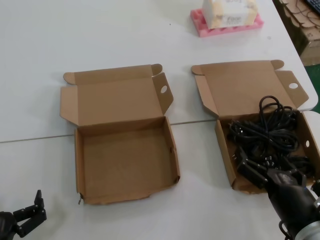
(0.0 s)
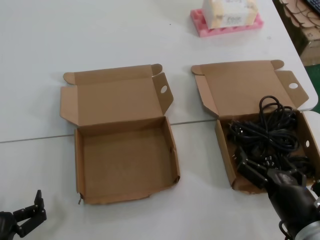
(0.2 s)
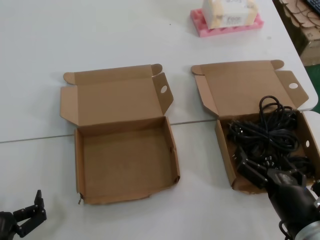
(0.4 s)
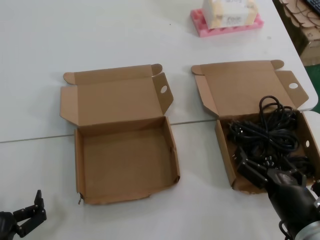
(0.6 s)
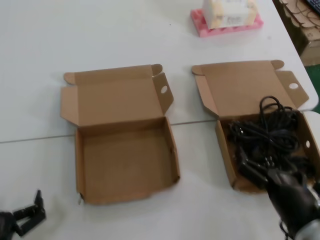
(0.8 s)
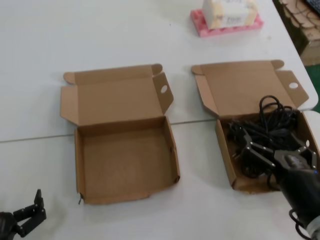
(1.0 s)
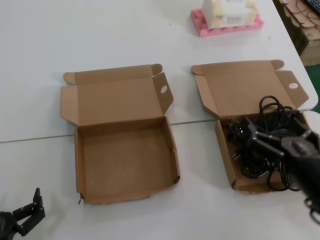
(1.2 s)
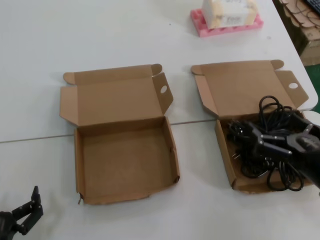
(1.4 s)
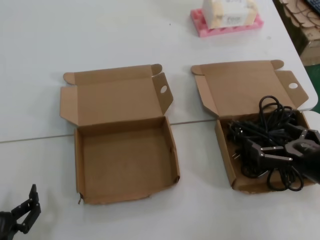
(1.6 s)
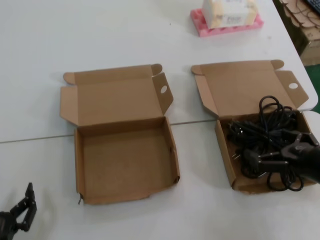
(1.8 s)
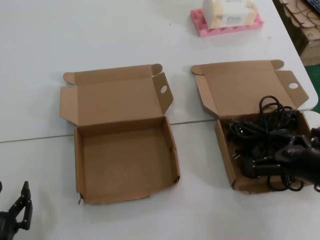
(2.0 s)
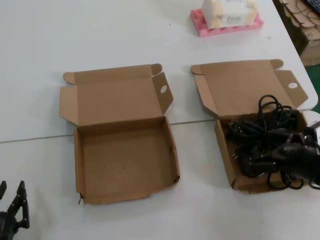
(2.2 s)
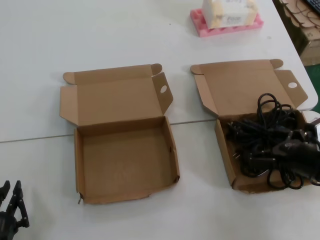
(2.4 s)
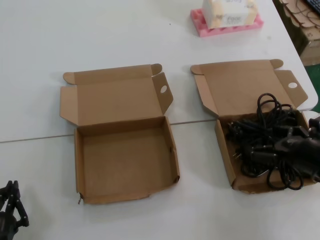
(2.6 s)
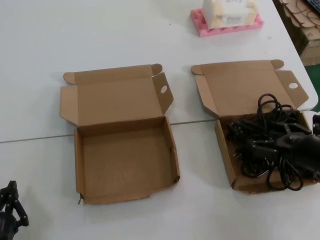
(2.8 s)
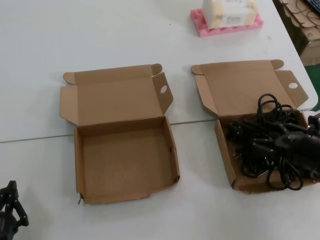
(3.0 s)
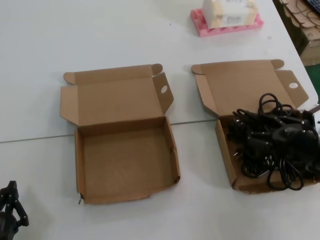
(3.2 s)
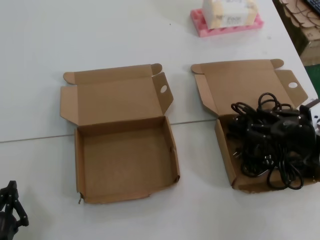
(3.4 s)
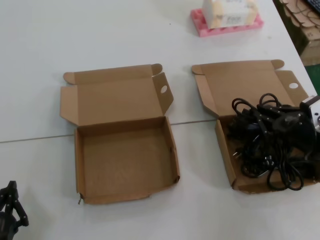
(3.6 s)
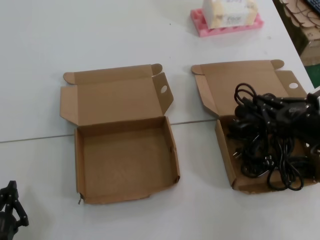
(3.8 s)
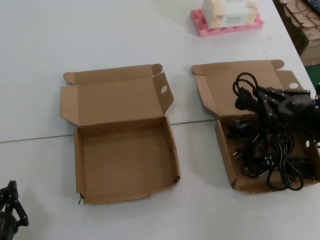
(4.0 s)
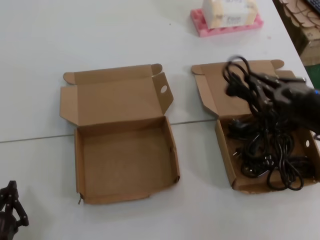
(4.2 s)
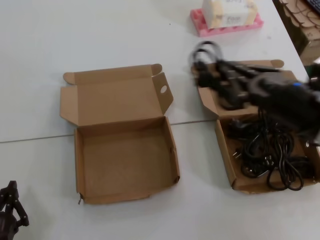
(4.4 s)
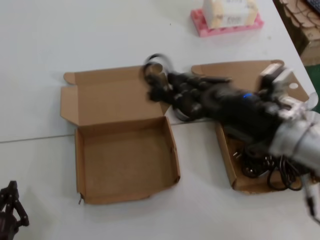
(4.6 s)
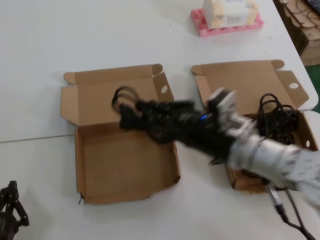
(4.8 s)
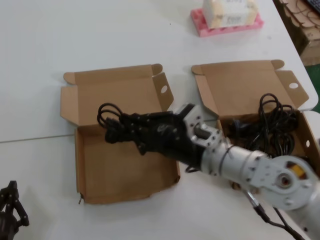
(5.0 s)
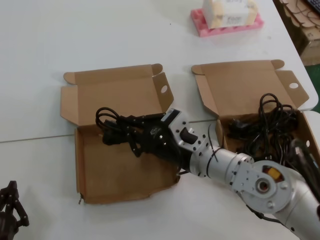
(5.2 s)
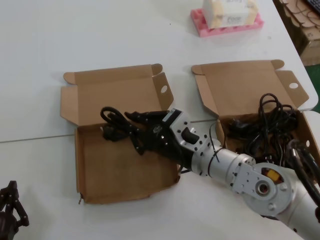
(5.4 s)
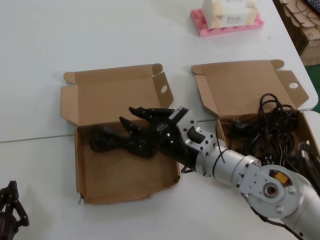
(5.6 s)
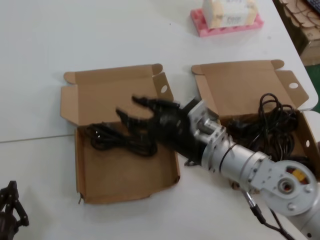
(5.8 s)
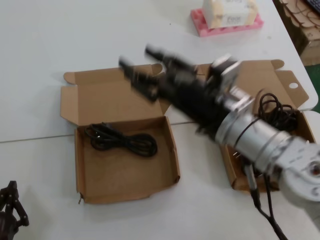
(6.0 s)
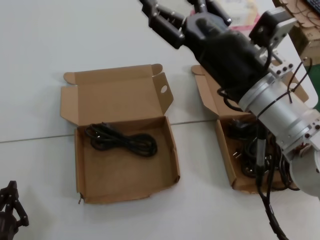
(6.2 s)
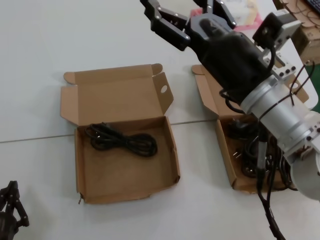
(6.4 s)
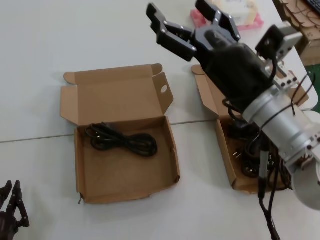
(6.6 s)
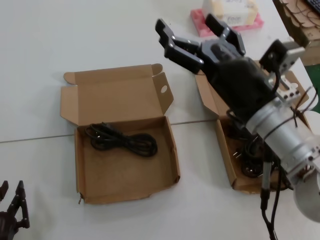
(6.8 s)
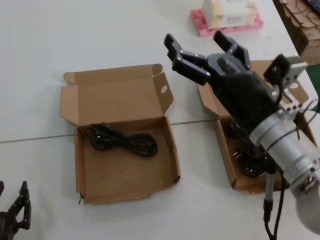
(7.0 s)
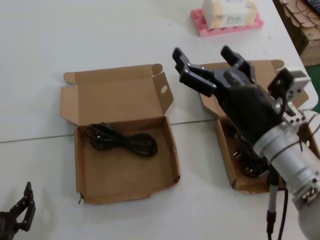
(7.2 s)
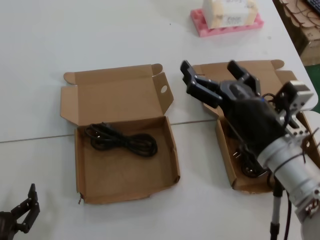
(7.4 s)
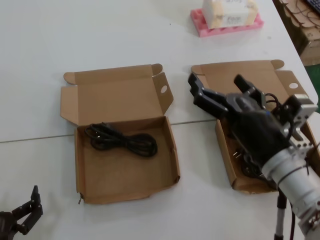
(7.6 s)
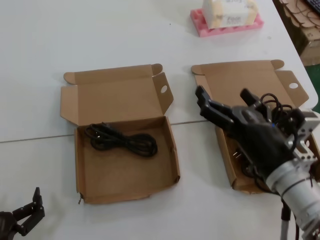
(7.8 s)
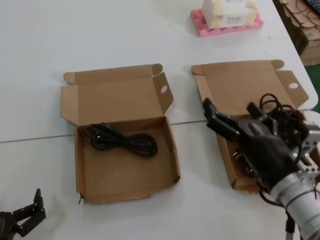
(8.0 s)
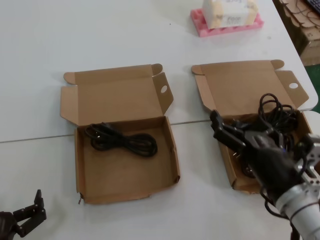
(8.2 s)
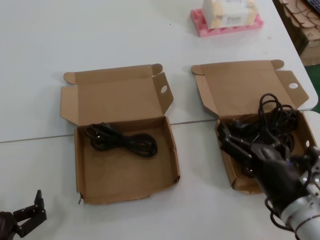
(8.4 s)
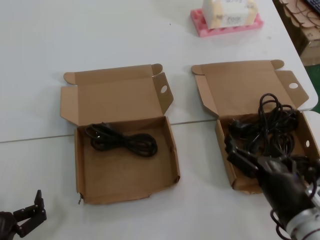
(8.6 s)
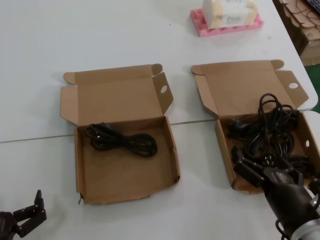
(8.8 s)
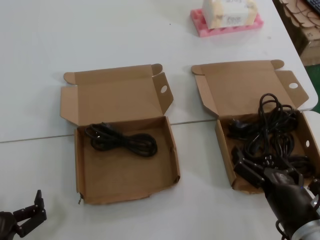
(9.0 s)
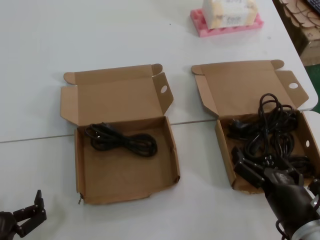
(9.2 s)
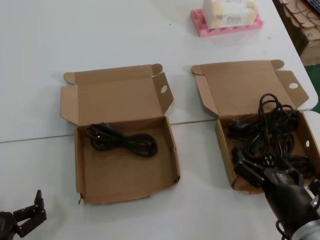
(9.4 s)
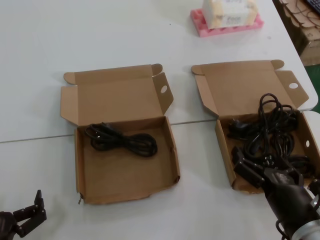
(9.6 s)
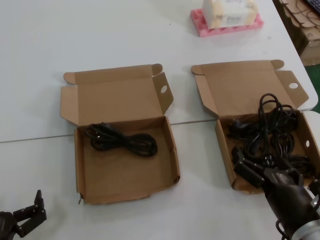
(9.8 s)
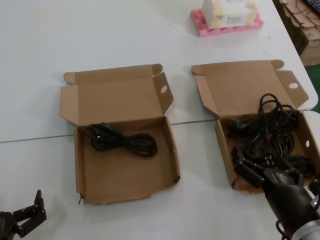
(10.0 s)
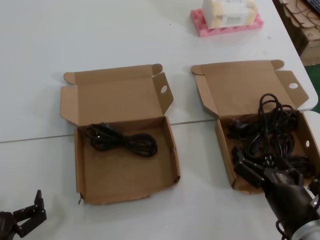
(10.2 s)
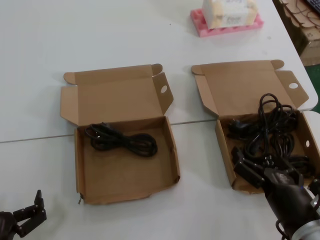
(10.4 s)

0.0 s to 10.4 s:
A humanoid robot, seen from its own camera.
Task of the whole recording: Pick up the power cord from the box containing it and place it in another box.
Step, 0.0 to 3.8 s: Grasp the data cable.
Step, 4.0 to 5.6 s: Place the data cable in the another box.
0.0 to 1.4 s: The right hand is displaced upward and to the right by approximately 10 cm.
1.4 to 3.0 s: The right hand travels forward by approximately 10 cm.
3.0 to 4.4 s: The right hand moves upward and to the left, some 10 cm.
4.4 to 6.0 s: The right hand heads to the left, covering roughly 15 cm.
6.0 to 7.4 s: The right hand goes about 5 cm to the right.
7.4 to 9.0 s: The right hand goes approximately 15 cm downward and backward.
9.0 to 10.4 s: Neither hand changes place.
